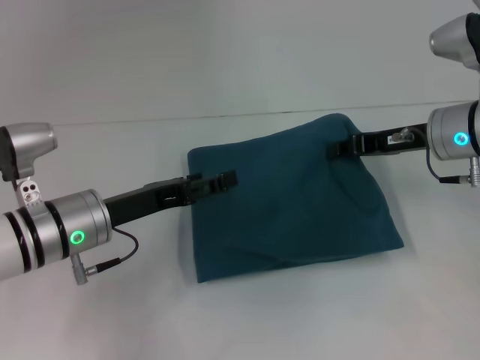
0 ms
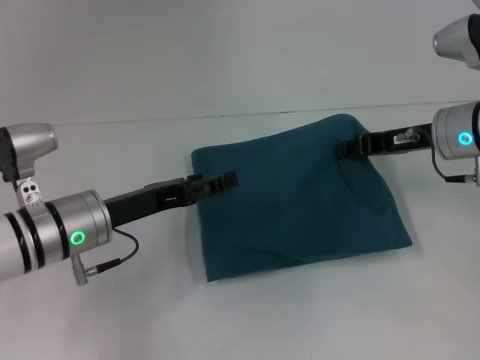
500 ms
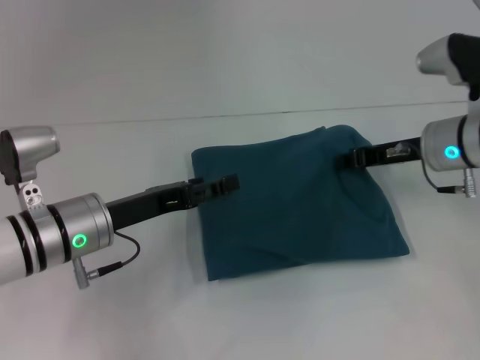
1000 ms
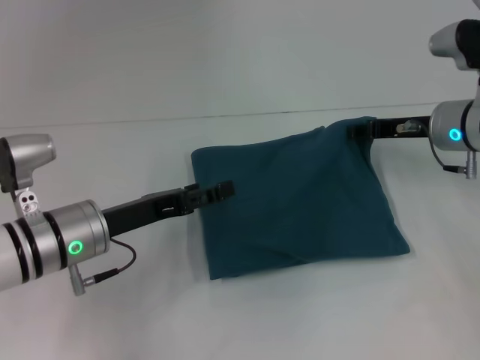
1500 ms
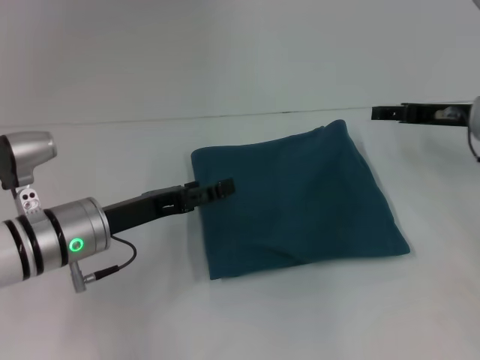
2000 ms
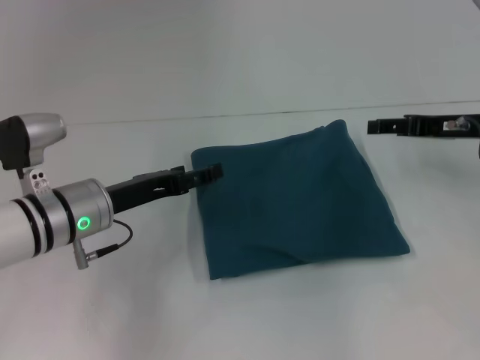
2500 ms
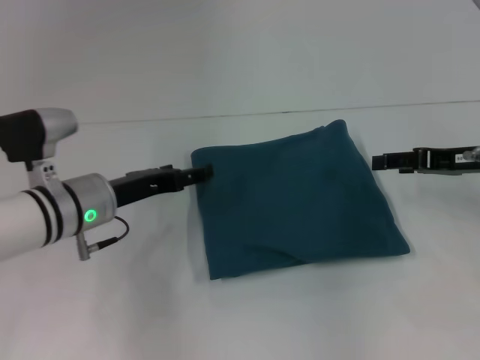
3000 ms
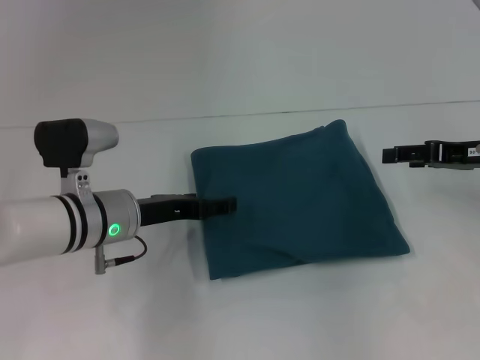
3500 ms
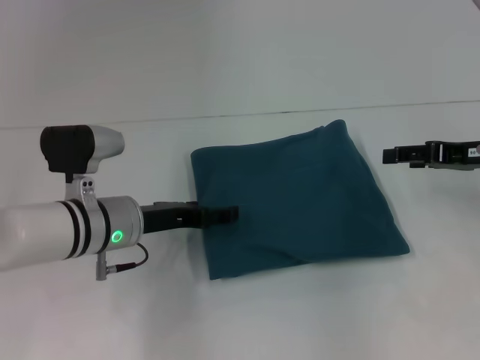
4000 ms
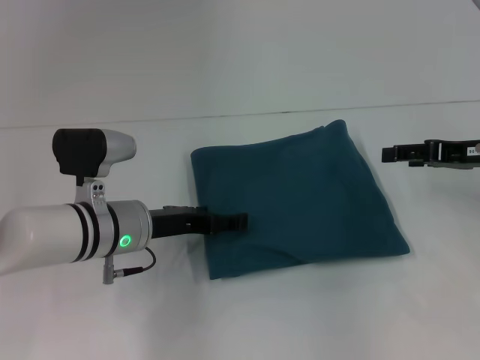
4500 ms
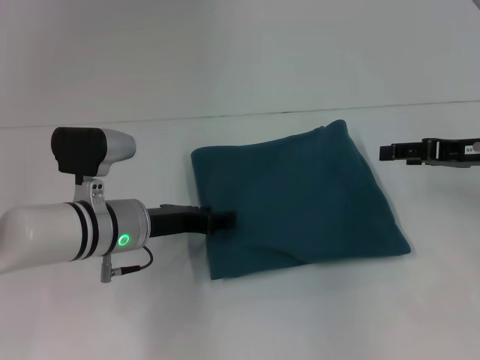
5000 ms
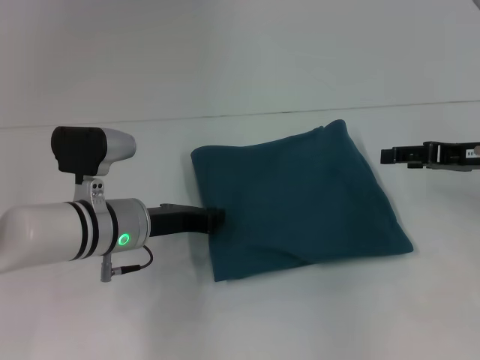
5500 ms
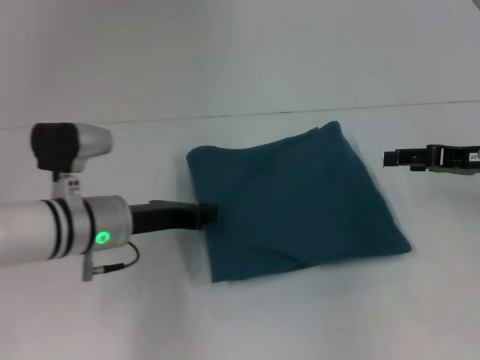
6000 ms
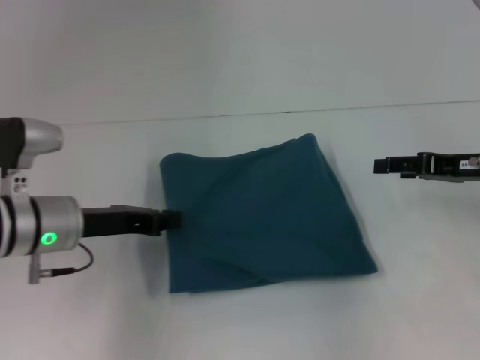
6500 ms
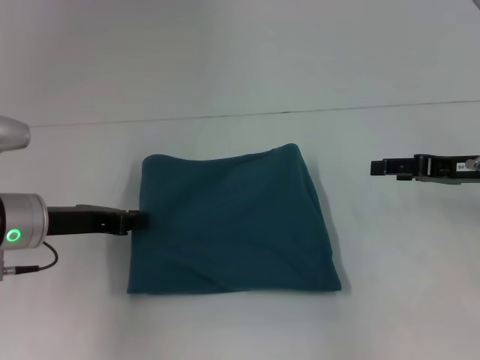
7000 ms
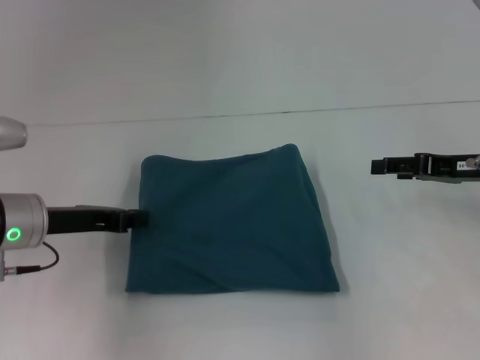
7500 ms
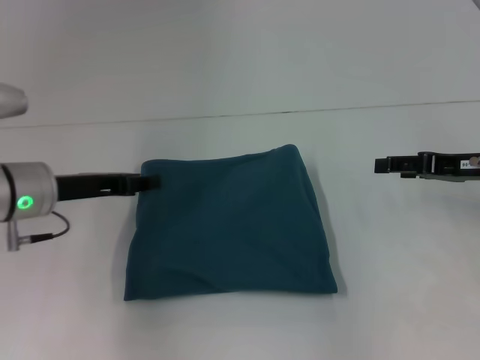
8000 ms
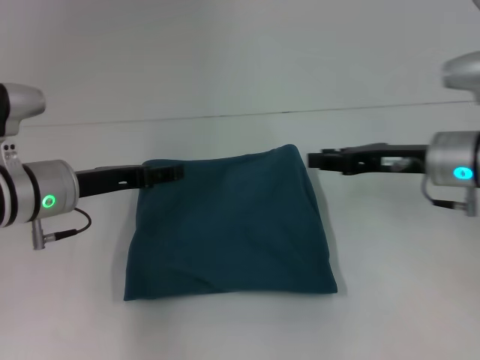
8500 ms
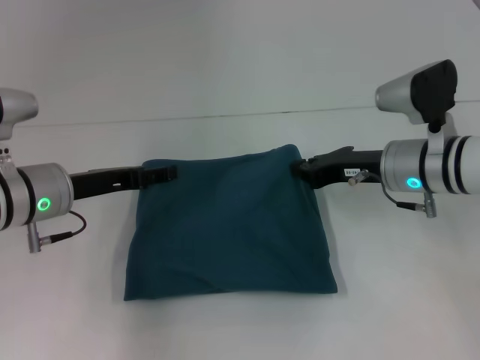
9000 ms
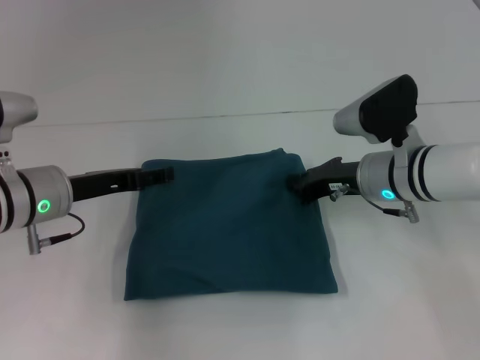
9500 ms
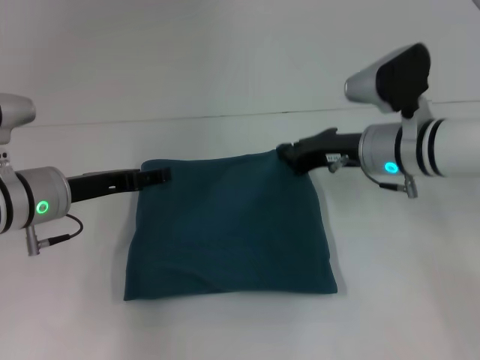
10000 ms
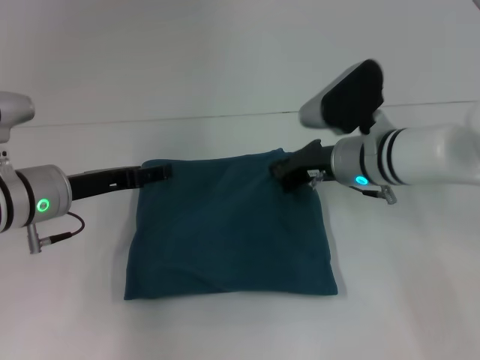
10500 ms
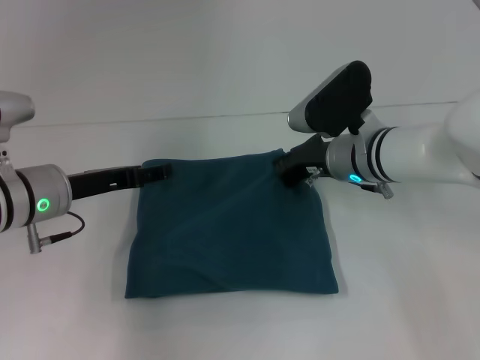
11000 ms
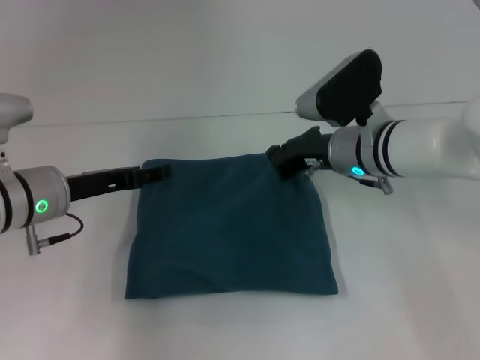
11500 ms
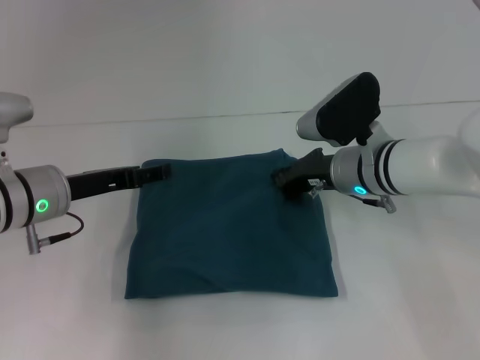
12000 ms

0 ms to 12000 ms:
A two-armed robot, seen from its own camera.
0 ms to 2000 ms: The right gripper opens its fingers.
2000 ms to 4000 ms: The right gripper changes place by approximately 5 cm.
4000 ms to 6000 ms: The left gripper closes its fingers.
6000 ms to 8000 ms: The left gripper shifts roughly 5 cm to the left.
8000 ms to 10000 ms: The right gripper heads to the left, covering about 15 cm, and closes up, while the left gripper opens.
10000 ms to 12000 ms: The grippers stay close to where they were, moving slightly.

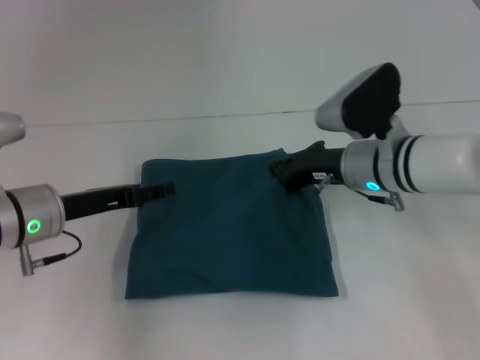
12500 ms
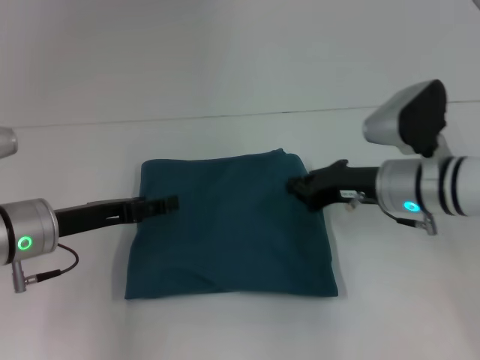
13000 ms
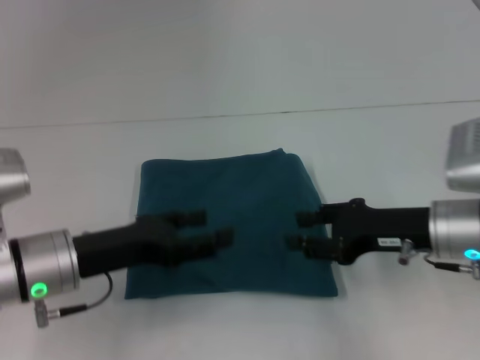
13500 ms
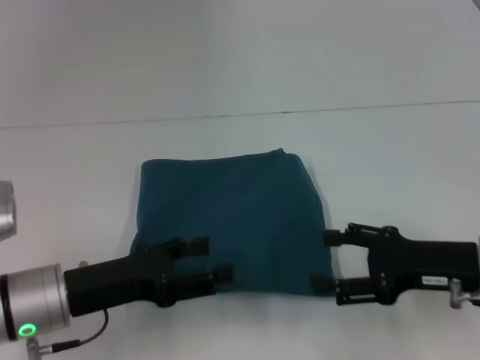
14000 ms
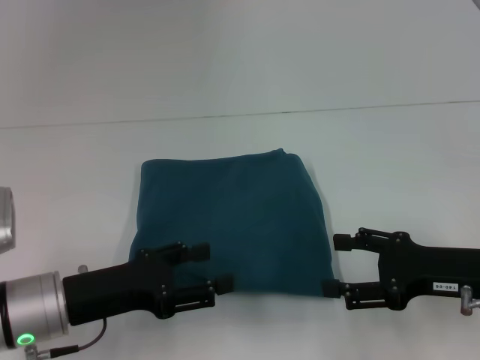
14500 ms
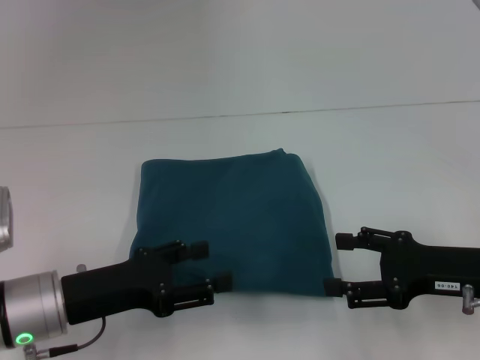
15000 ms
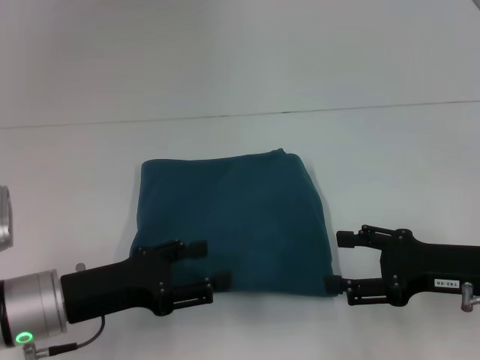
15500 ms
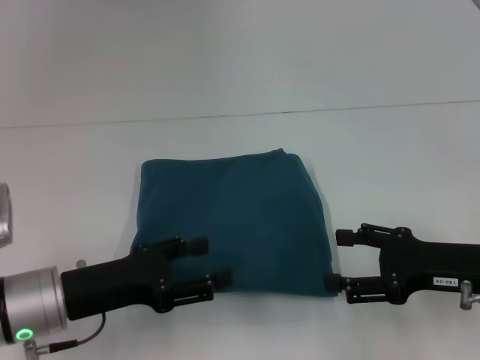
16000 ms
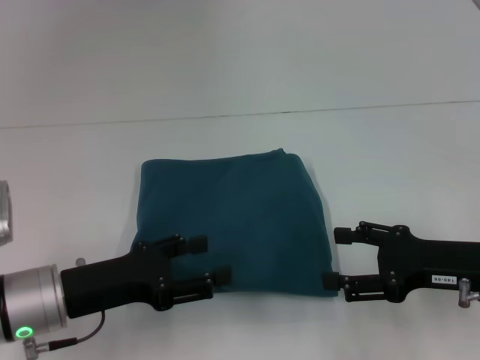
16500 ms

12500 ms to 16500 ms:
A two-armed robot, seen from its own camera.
12500 ms to 14500 ms: The right gripper heads backward and to the right, covering about 15 cm, and opens up. Meanwhile the left gripper is displaced backward by some 10 cm.
14500 ms to 16500 ms: Neither gripper changes place.
